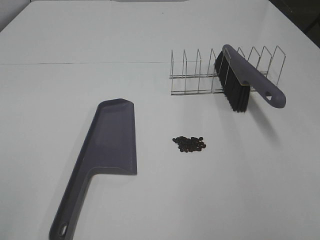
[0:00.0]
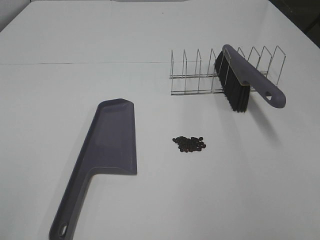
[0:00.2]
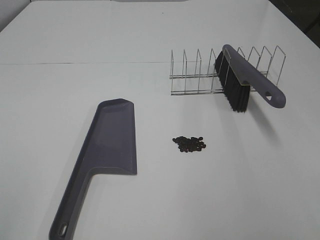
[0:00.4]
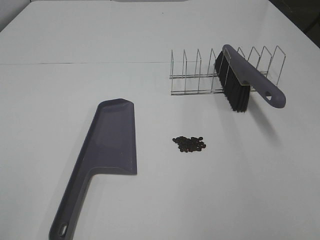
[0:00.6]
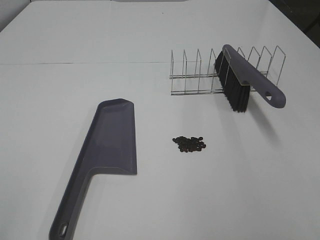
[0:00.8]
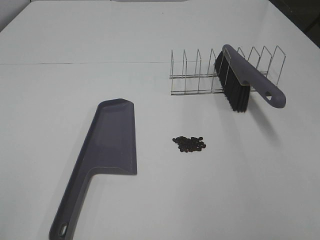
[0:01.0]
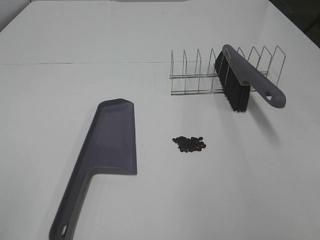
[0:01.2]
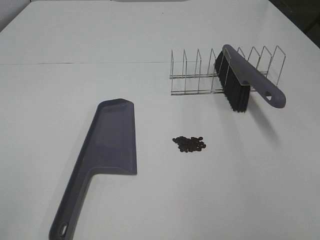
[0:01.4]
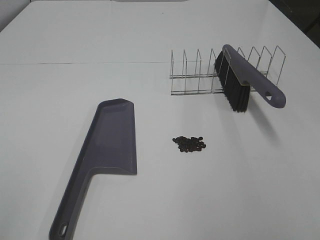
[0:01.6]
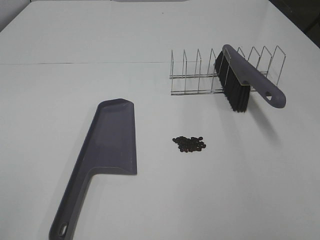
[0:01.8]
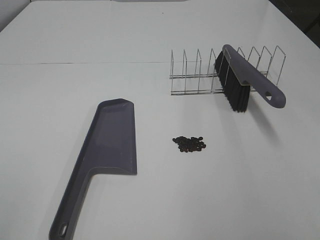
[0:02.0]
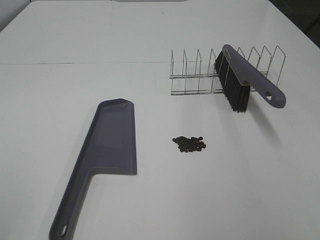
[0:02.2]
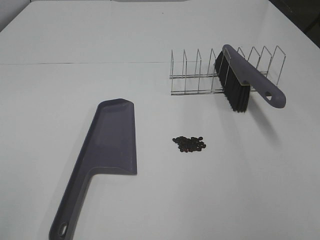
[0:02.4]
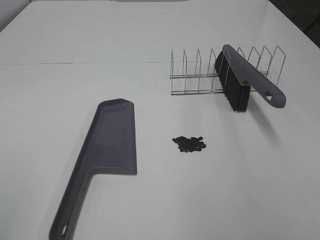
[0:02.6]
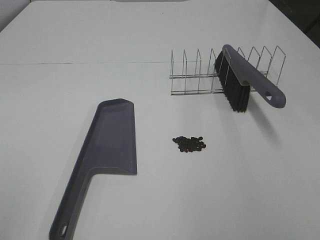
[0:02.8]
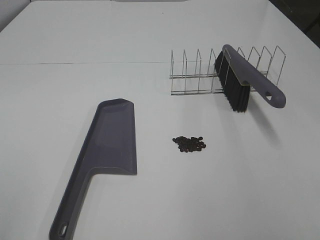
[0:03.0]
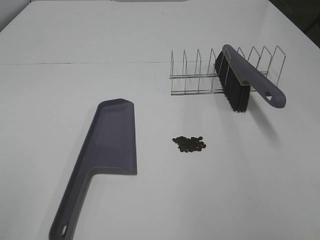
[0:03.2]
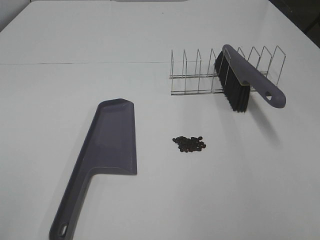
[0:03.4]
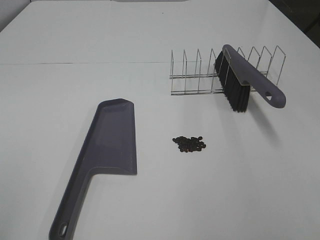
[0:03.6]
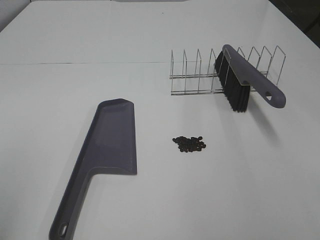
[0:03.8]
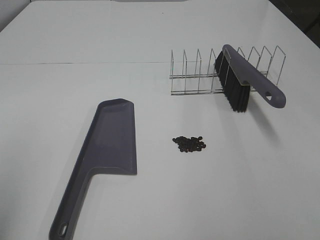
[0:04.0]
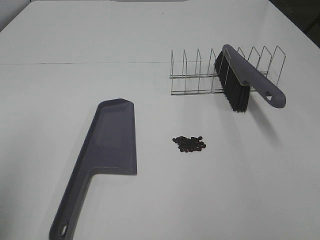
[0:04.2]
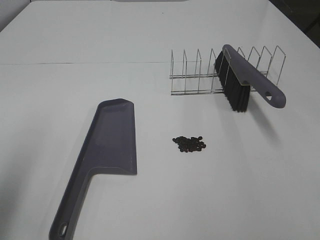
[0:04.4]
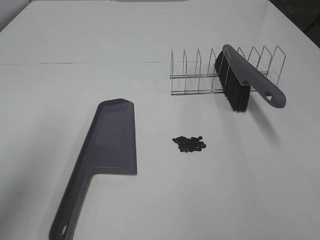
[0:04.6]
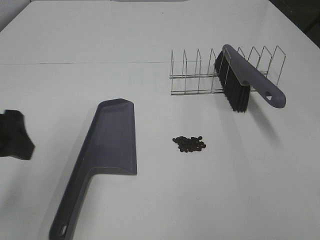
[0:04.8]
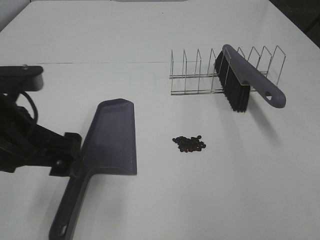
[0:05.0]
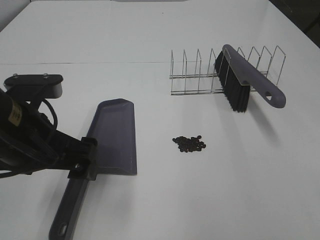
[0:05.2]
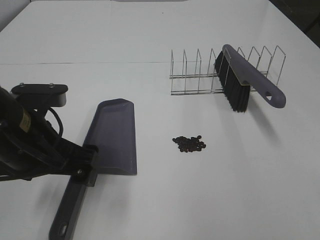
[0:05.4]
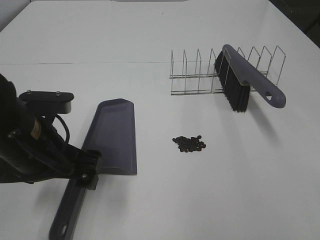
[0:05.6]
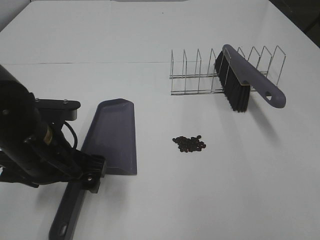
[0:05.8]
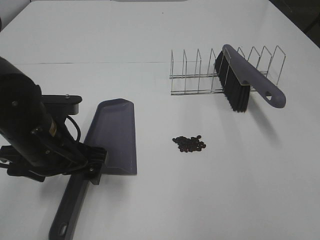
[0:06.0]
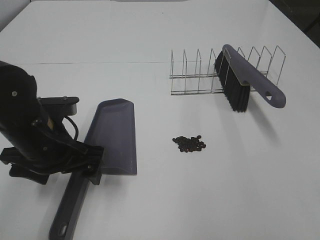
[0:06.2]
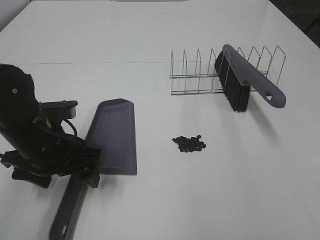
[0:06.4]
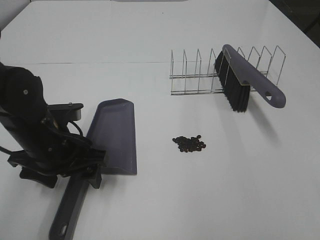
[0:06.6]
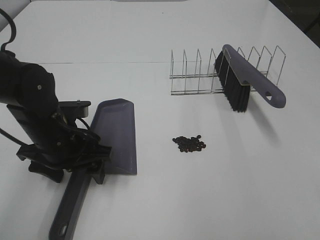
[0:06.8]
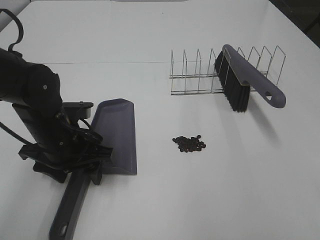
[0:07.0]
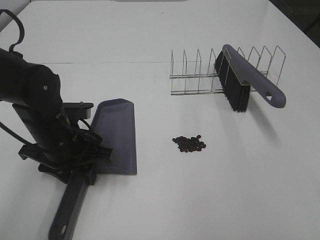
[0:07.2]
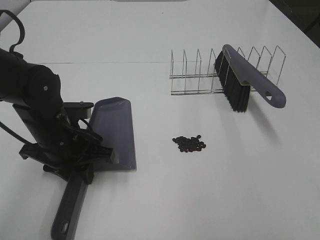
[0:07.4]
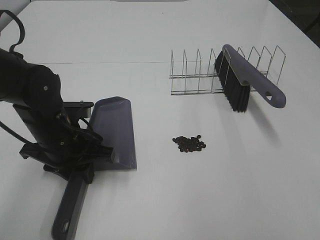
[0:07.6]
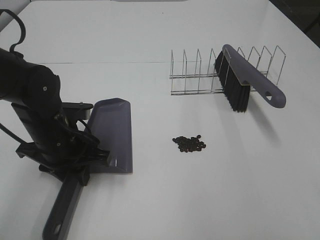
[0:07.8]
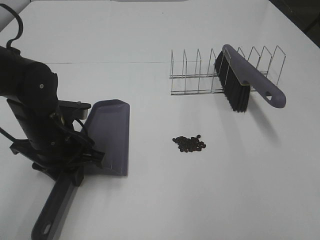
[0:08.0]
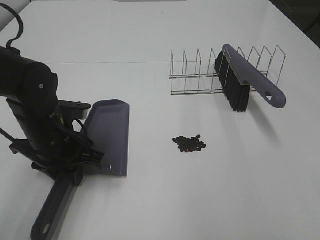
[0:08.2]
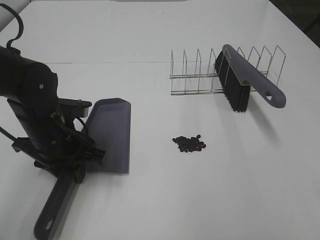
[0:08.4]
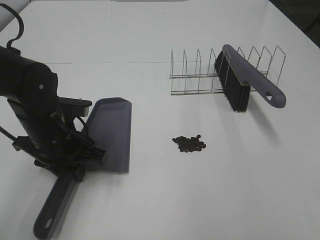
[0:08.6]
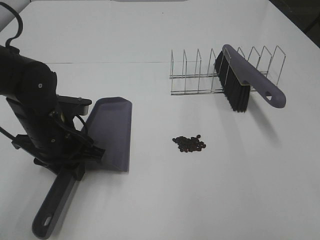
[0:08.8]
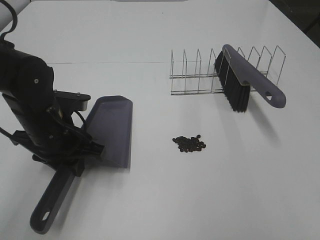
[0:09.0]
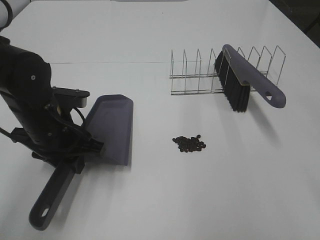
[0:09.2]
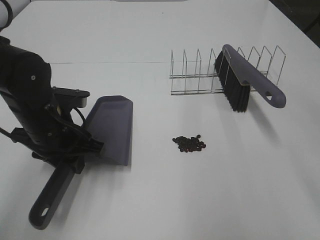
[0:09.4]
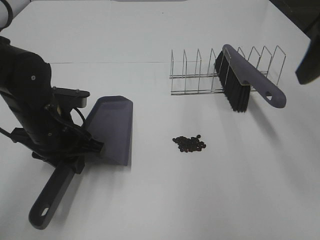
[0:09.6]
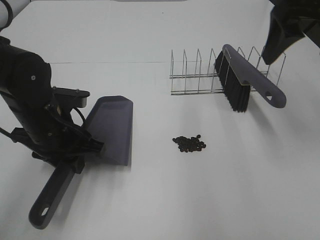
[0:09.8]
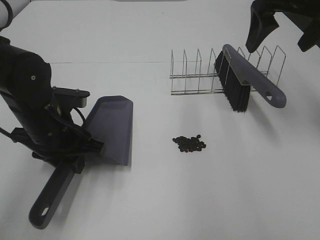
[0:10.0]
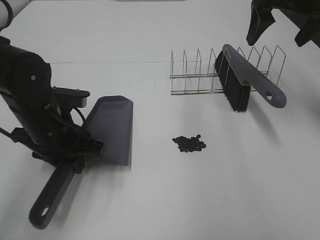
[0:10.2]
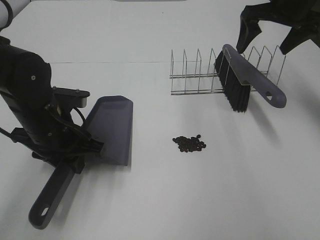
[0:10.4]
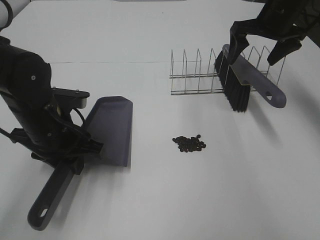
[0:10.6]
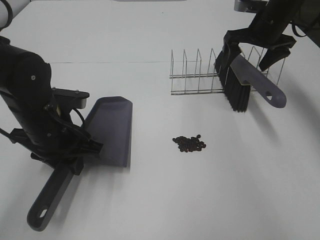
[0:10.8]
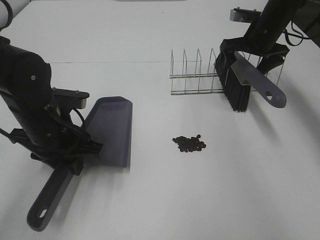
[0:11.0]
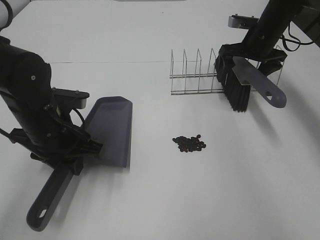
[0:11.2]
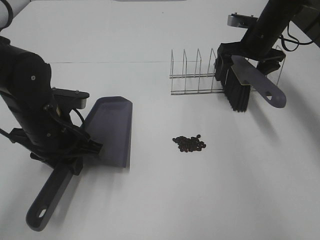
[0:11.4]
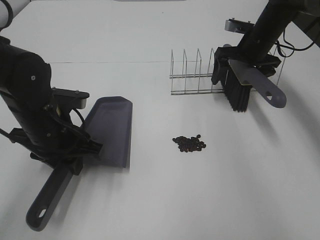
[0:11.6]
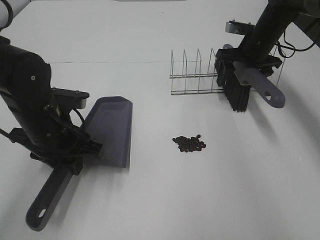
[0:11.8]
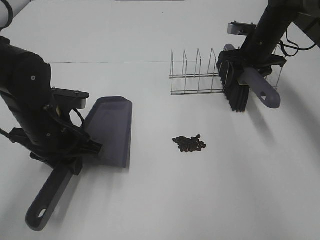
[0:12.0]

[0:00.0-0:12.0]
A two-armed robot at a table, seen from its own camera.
Task of the whole recording: Sweep Coffee Bean.
Step, 0:00.0 to 0:07.6: Left hand: grab the dustpan.
Step, 0:08.8 to 0:11.8: Right hand:grab the broom.
0:00.0 to 0:03.0: Both grippers stay about where they are.
0:03.0 to 0:04.4: The left gripper shifts some 15 cm forward.
0:04.4 to 0:06.0: The left gripper is displaced downward, to the right and forward by approximately 25 cm.
0:06.0 to 0:07.6: The left gripper ends up some 5 cm from where it was, and closes.
0:07.6 to 0:09.0: The right gripper ends up about 5 cm from where it was.
0:09.0 to 0:10.4: The right gripper travels forward by about 40 cm.
0:10.4 to 0:12.0: The right gripper is displaced downward and forward by roughly 10 cm, and closes.

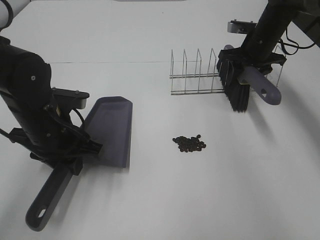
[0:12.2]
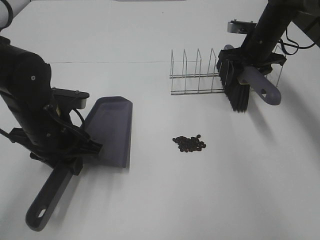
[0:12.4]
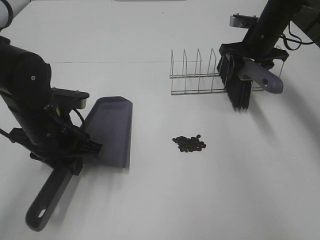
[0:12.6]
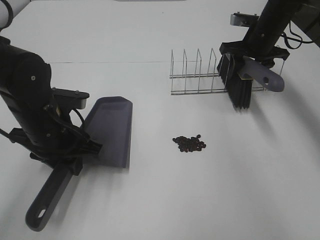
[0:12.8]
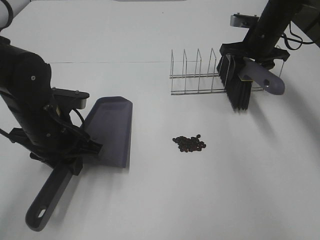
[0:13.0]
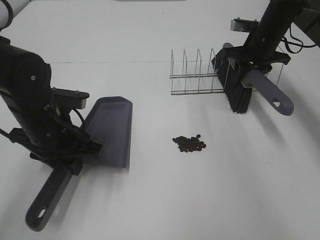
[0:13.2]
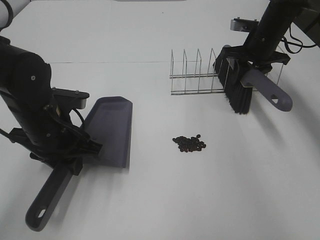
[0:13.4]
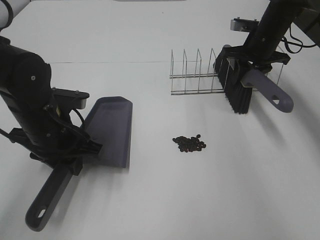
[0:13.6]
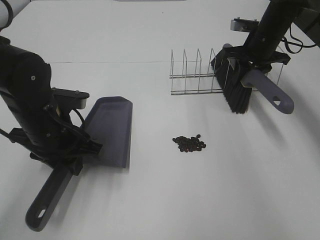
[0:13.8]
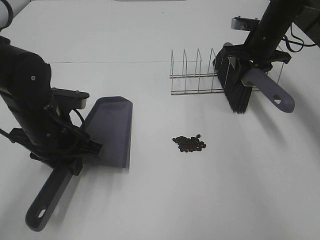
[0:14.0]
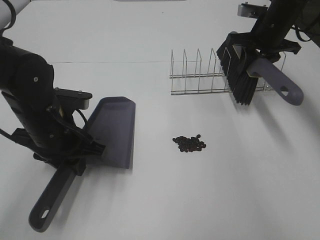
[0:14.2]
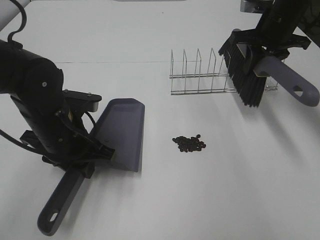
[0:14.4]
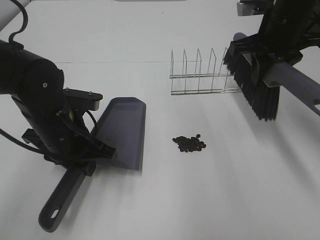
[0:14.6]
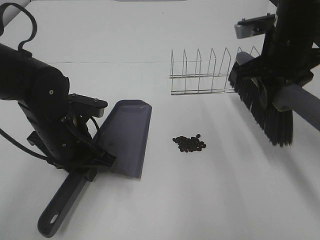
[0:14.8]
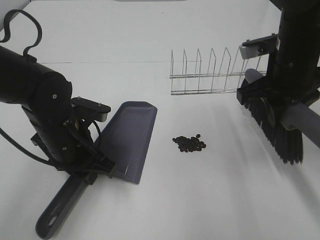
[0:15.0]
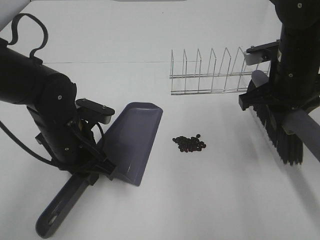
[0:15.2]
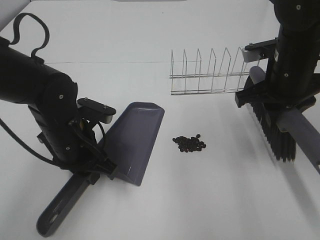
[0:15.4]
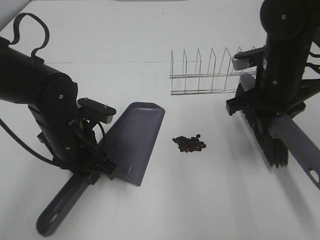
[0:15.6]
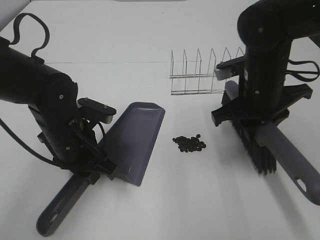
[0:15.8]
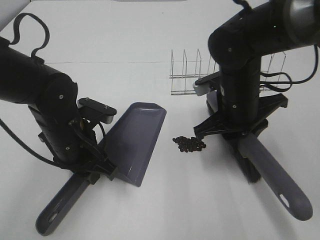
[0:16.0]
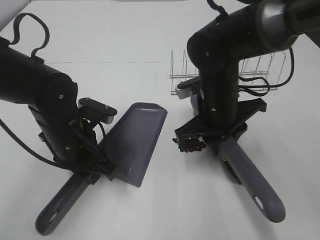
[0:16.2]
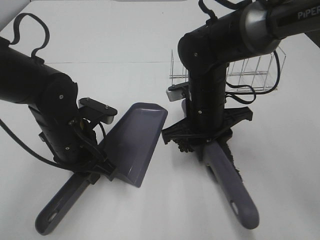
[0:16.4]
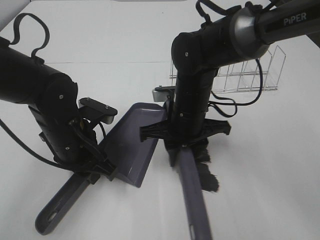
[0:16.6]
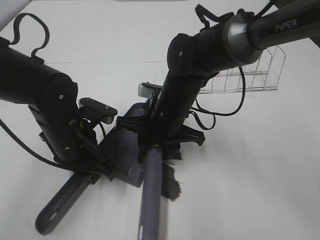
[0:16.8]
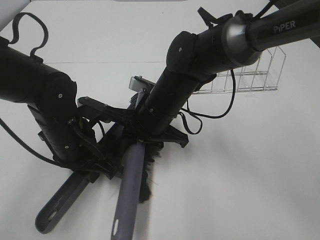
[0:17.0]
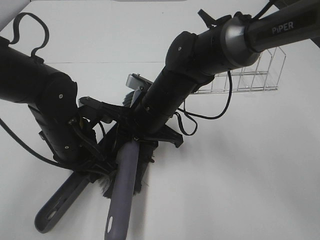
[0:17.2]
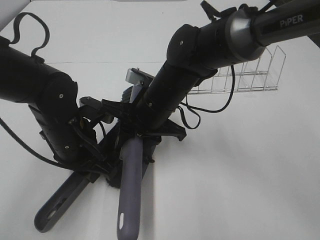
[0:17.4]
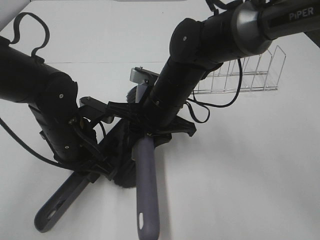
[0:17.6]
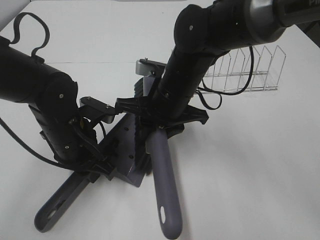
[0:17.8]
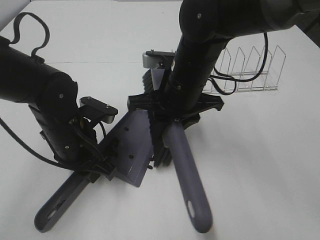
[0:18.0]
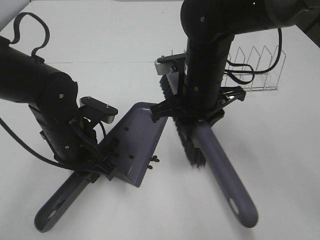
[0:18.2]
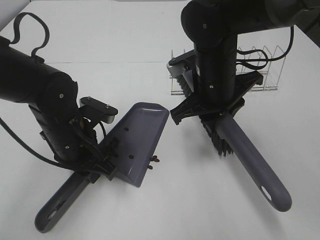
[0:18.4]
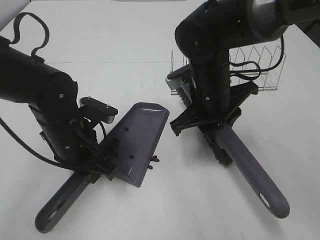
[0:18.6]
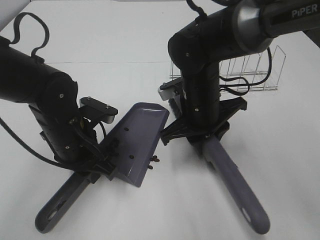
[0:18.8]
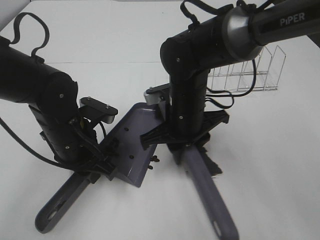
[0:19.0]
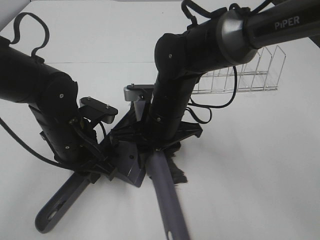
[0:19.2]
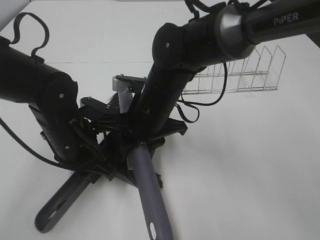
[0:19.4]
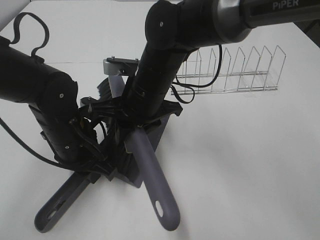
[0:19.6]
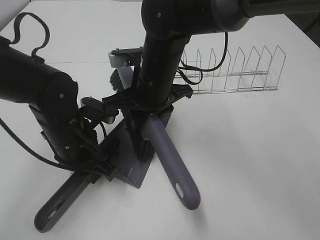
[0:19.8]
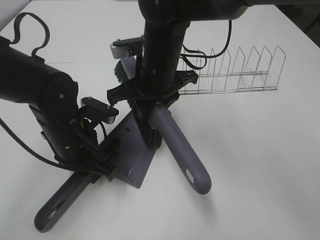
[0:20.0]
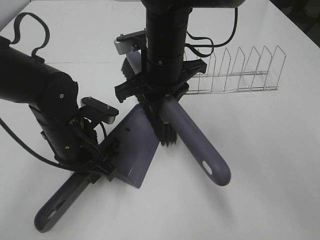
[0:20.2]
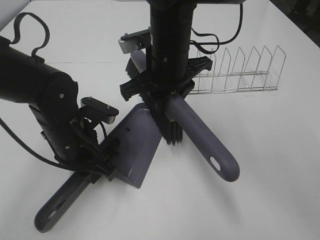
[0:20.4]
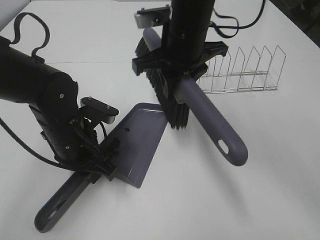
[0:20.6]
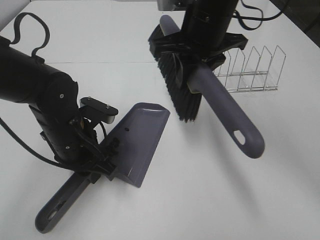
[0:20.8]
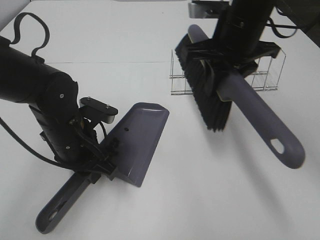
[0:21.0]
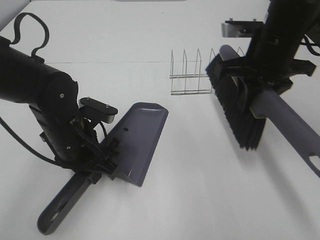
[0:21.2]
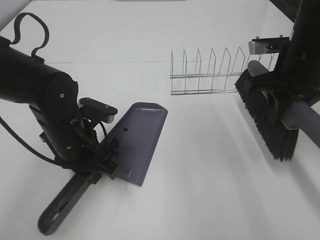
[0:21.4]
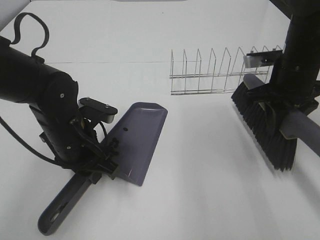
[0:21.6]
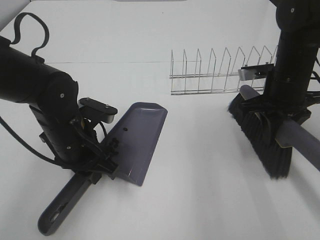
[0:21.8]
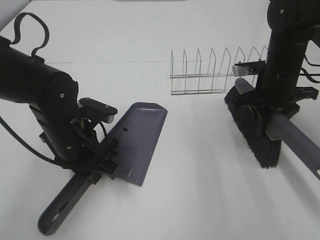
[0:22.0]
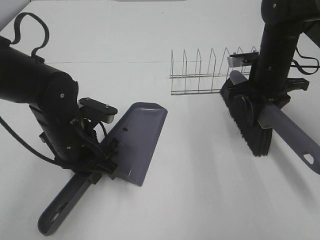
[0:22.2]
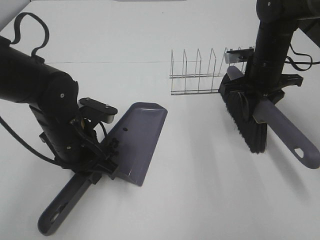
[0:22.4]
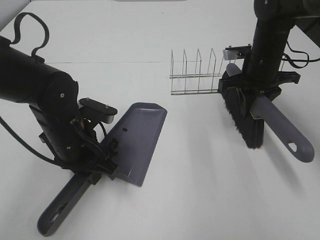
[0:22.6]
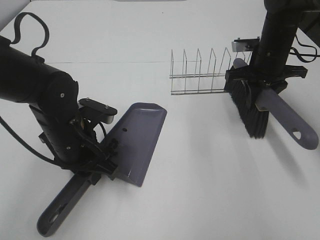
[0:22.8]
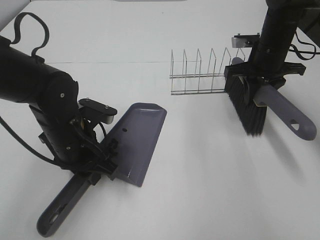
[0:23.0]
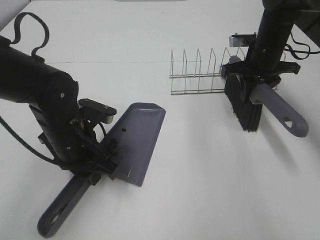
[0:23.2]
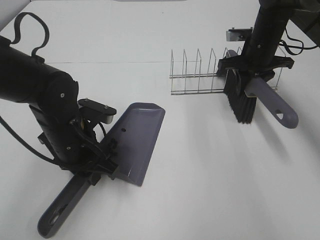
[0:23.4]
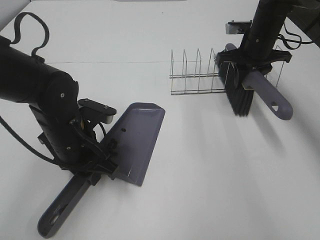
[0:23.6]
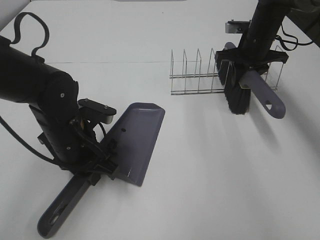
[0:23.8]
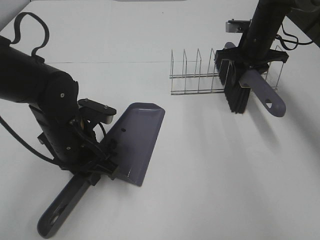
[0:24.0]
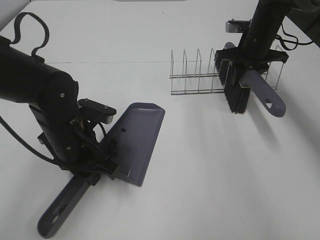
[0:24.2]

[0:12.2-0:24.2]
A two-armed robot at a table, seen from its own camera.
Task of the whole recording: Sweep Coffee Bean.
Step, 0:12.2 to 0:15.2: Left hand: move the dustpan to the left side of the coffee beans.
Step, 0:12.2 to 0:19.8: Right hand:sweep the coffee beans into the dustpan.
0:12.2 to 0:13.8: The grippers make only small movements.
0:13.8 to 0:15.2: The right gripper travels backward by roughly 20 cm.
0:15.2 to 0:16.6: The right gripper shifts roughly 15 cm to the left and downward.
0:16.6 to 0:18.2: The right gripper moves upward, about 5 cm.
0:18.2 to 0:19.8: The right gripper shifts approximately 5 cm to the left.
0:19.8 to 0:21.2: The right gripper shifts approximately 20 cm to the right.
0:21.2 to 0:22.6: The right gripper moves forward and downward, approximately 10 cm.
0:22.6 to 0:24.2: The right gripper goes some 5 cm forward.
